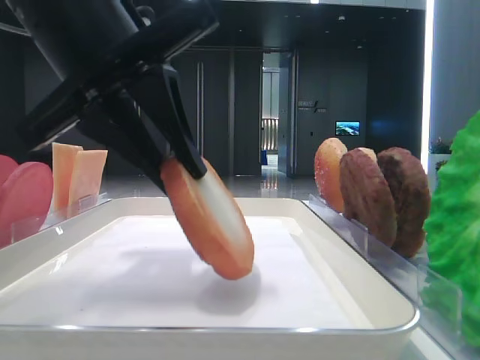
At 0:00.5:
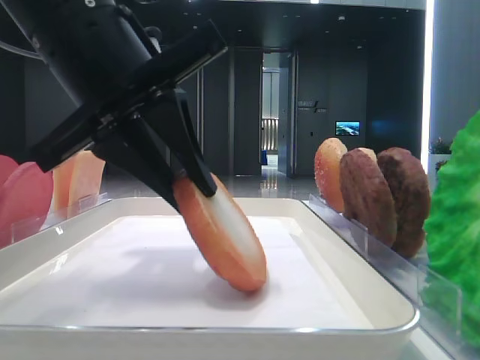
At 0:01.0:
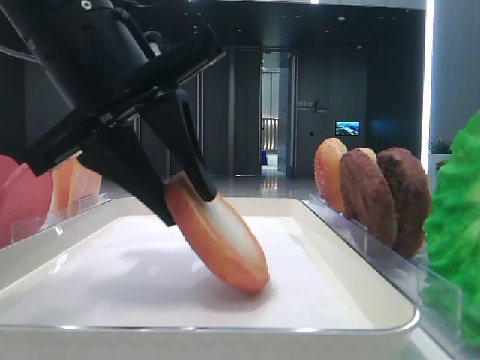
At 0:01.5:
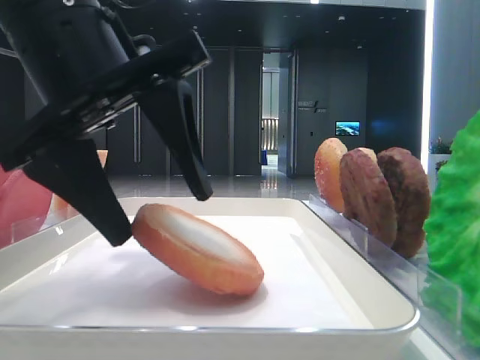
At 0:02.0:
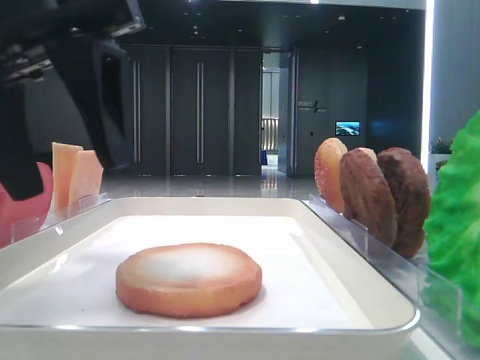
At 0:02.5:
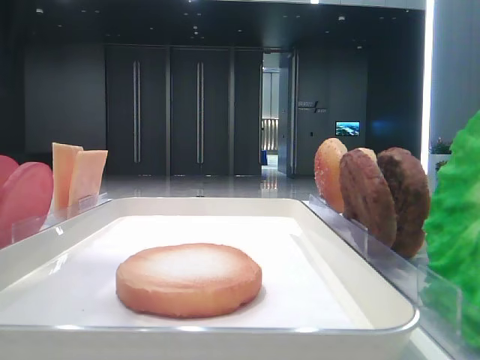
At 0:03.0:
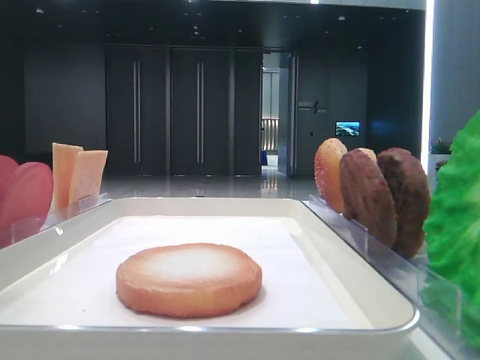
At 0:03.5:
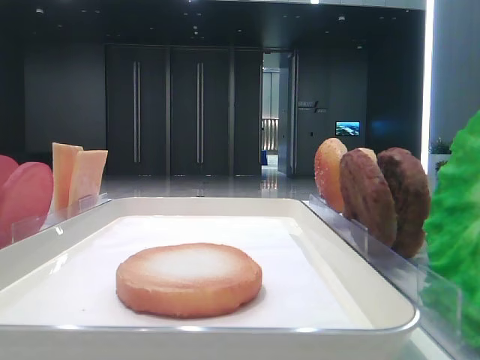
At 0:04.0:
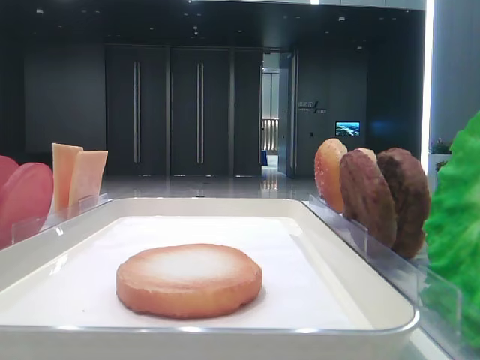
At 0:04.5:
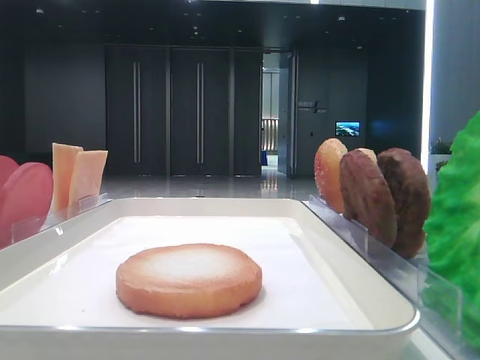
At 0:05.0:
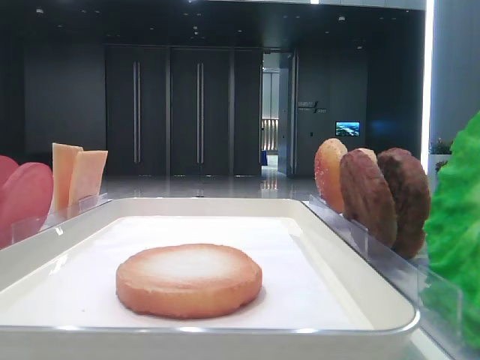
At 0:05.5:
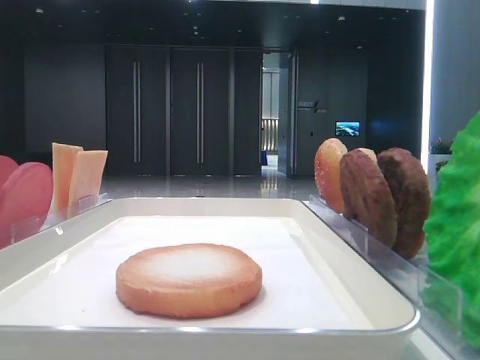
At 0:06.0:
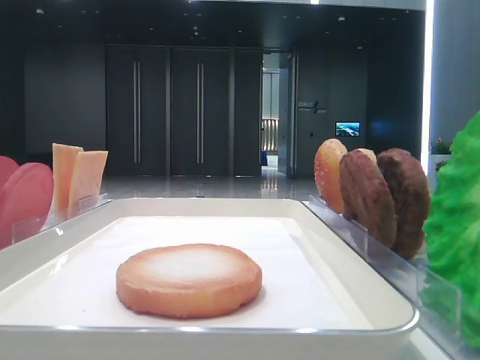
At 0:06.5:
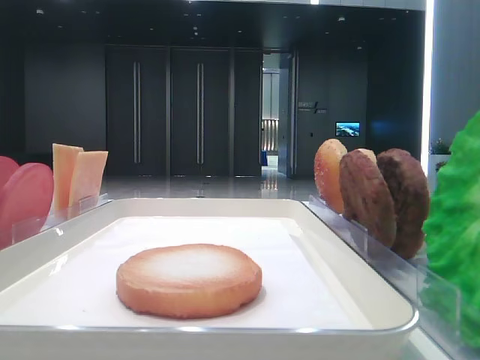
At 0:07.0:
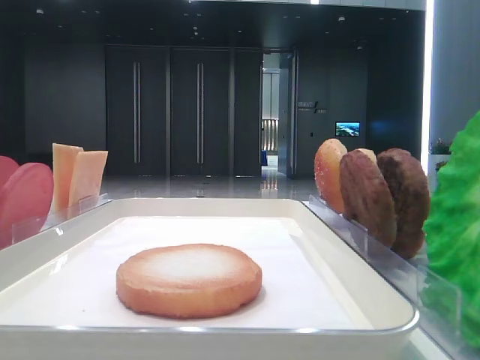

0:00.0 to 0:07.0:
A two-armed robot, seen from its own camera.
0:00.0 to 0:02.0: The left gripper opens.
0:02.0 to 0:03.5: The left gripper is displaced to the left and upward by approximately 20 cm.

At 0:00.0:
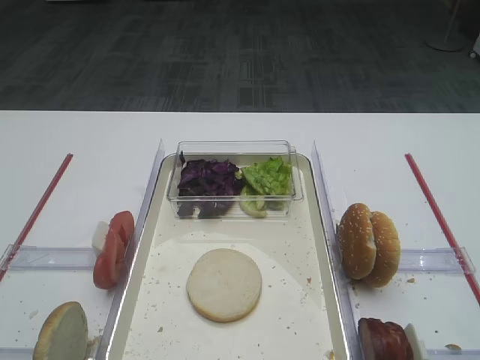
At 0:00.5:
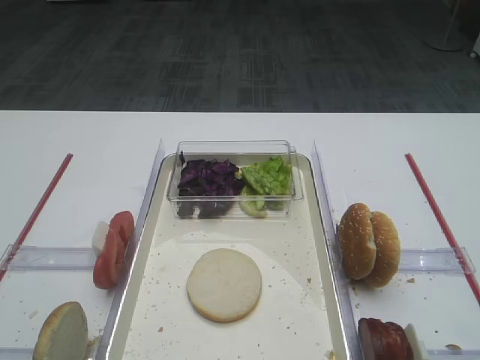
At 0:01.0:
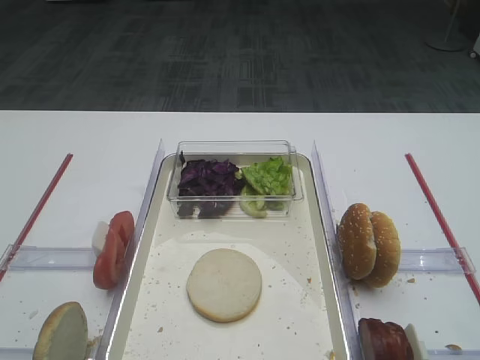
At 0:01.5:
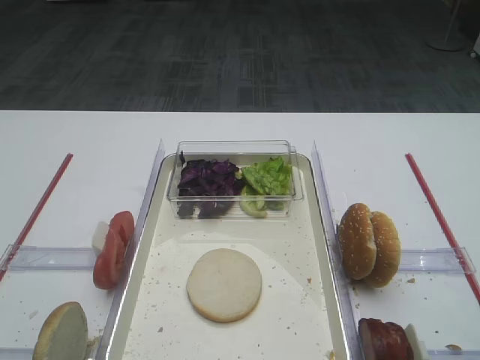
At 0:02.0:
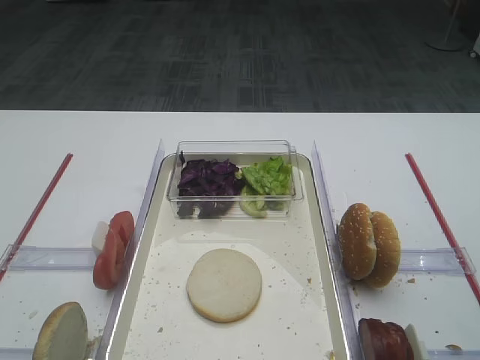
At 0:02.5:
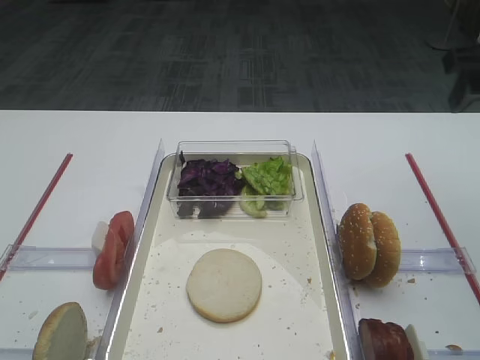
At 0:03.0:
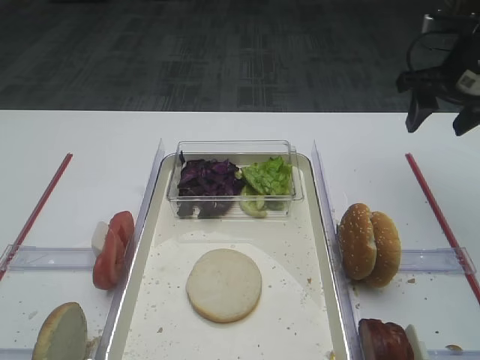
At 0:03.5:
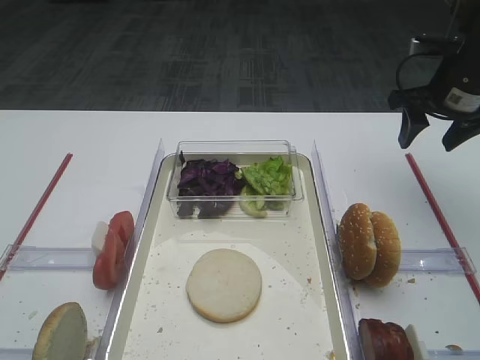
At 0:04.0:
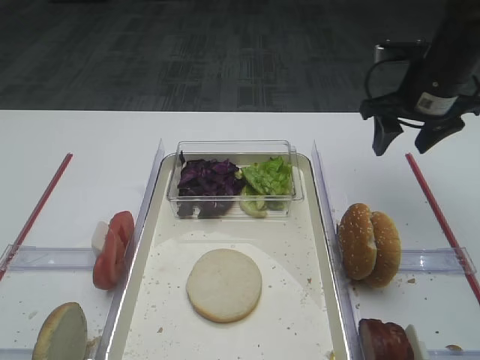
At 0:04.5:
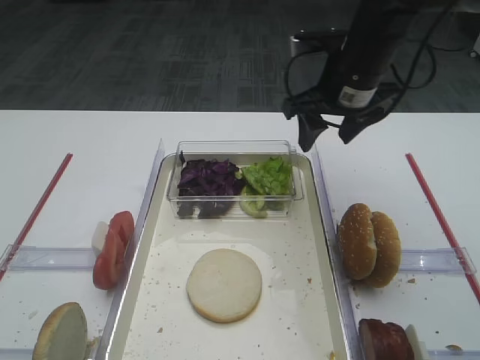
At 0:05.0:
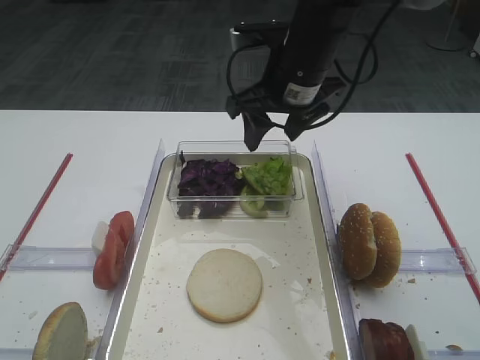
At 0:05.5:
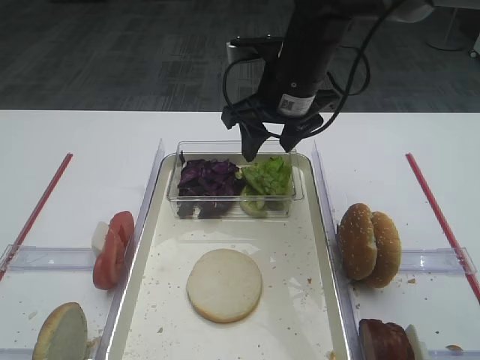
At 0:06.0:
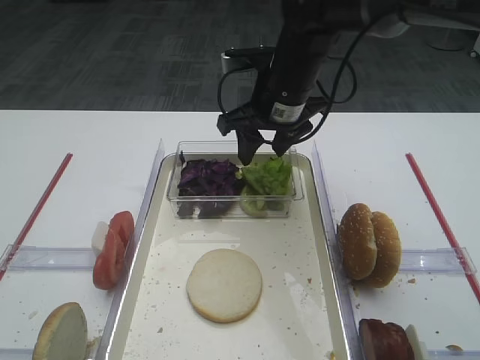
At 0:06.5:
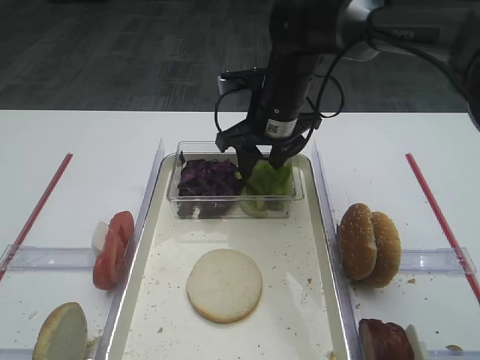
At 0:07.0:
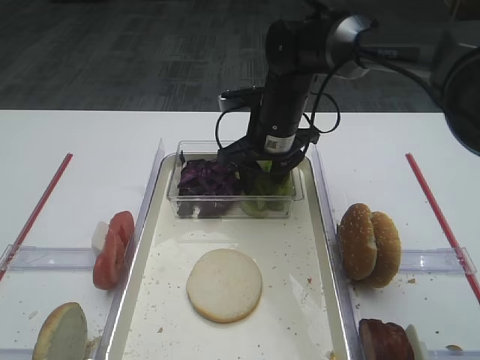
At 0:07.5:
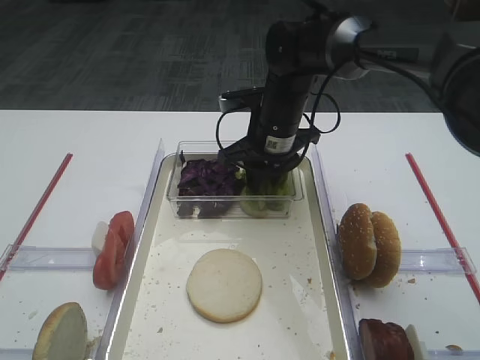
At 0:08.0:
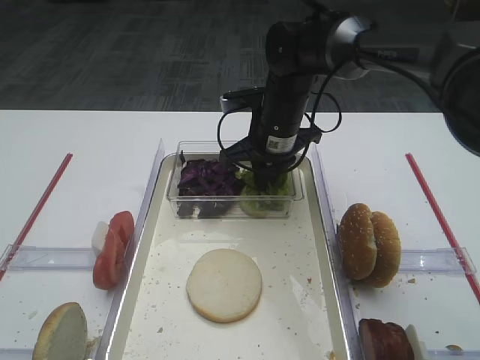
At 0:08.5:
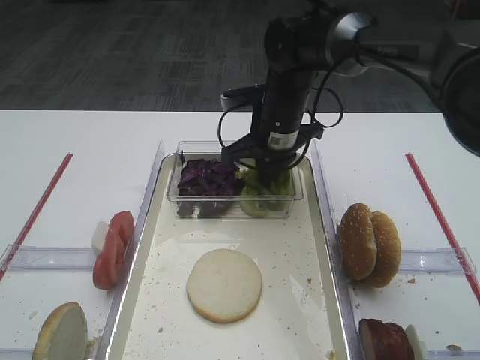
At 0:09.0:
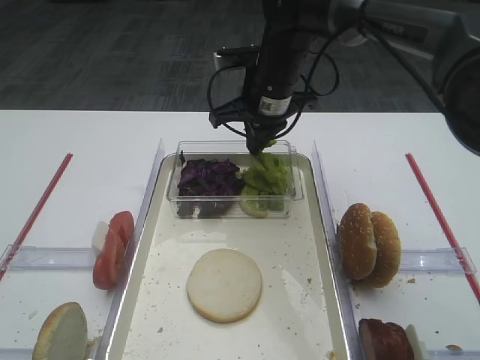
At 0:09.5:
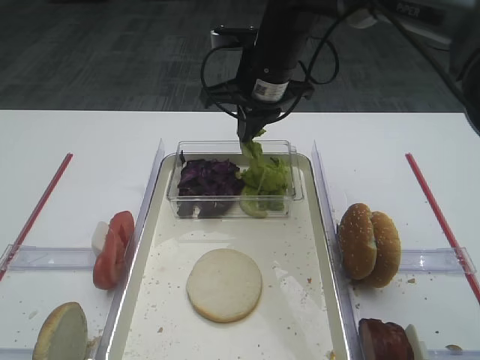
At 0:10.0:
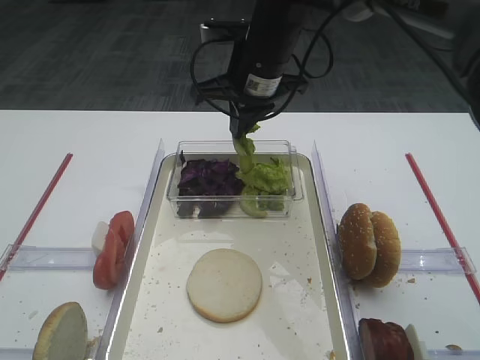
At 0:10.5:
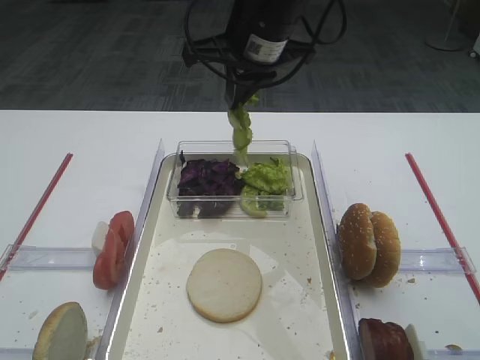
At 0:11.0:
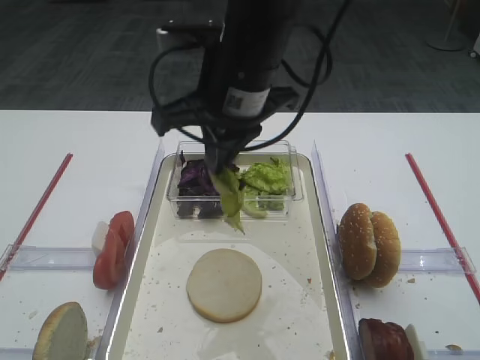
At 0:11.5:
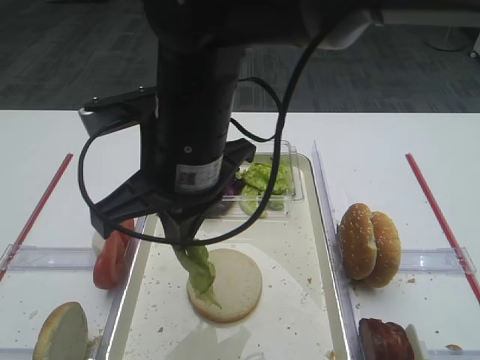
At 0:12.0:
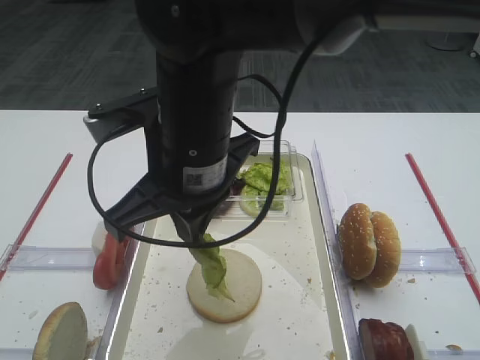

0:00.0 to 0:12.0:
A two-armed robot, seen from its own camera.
Step, 0:00.0 to 0:10.0: Pick up the lettuce leaf with the right gripper.
0:02.0 to 0:04.0: The right gripper travels forward and downward by about 30 cm.
0:04.0 to 0:06.0: The right gripper is displaced to the left by about 20 cm.
0:06.0 to 0:08.0: The right gripper shifts about 5 cm downward, and closes.
0:08.0 to 0:10.0: The right gripper travels upward by about 10 cm.
0:10.0 to 0:12.0: The right gripper heads backward, covering some 20 cm.

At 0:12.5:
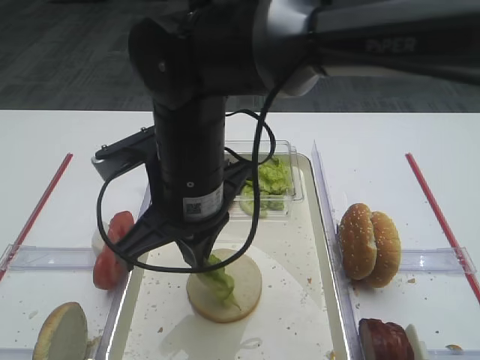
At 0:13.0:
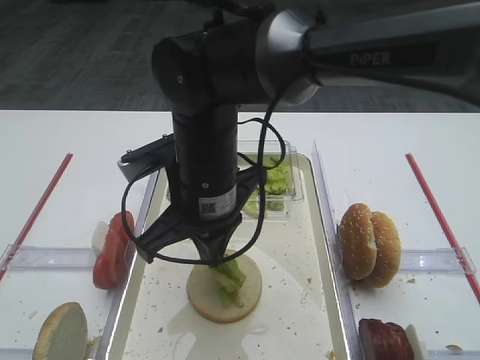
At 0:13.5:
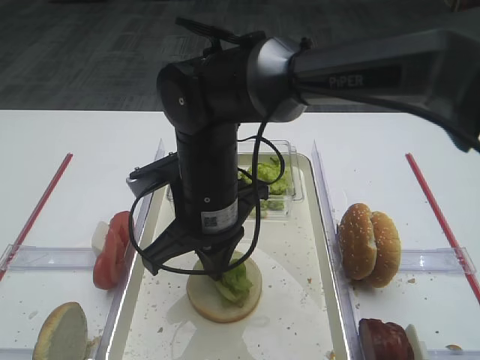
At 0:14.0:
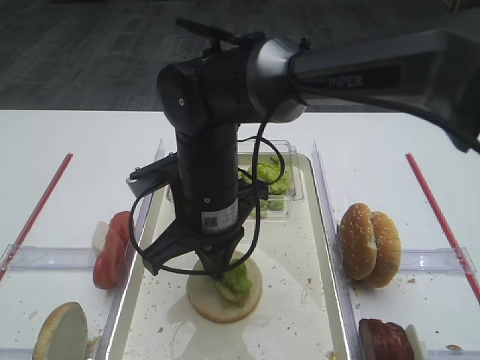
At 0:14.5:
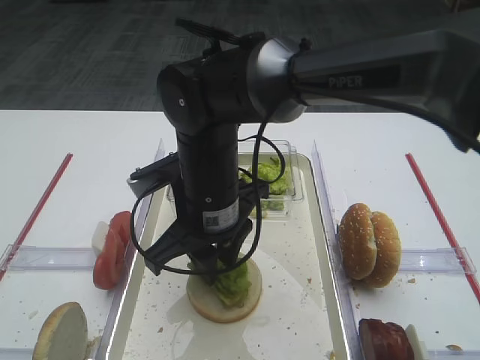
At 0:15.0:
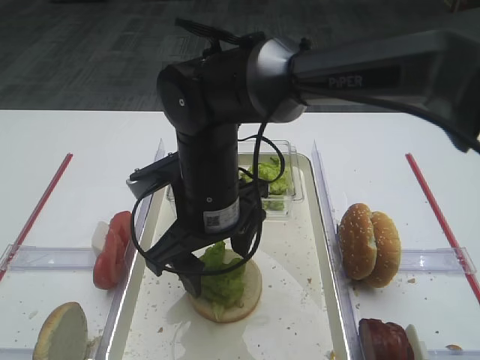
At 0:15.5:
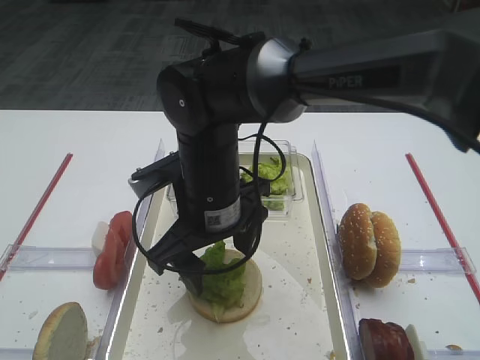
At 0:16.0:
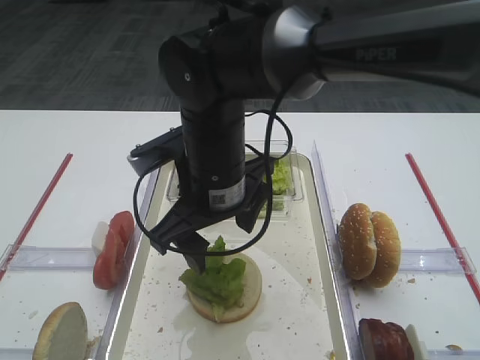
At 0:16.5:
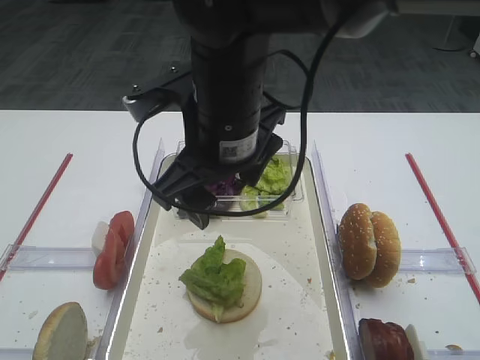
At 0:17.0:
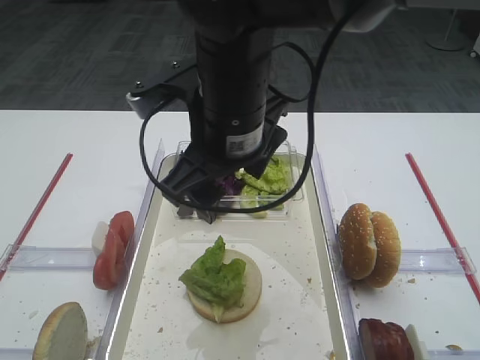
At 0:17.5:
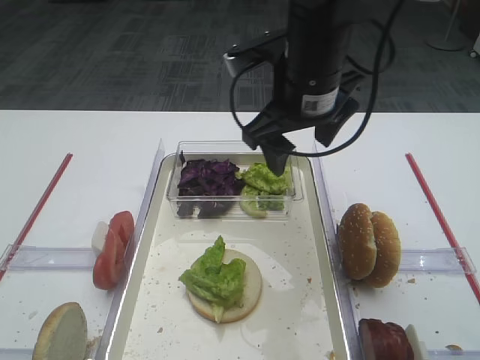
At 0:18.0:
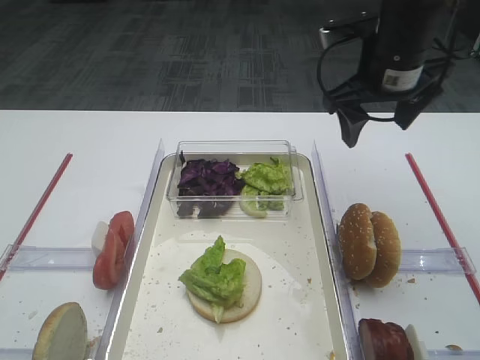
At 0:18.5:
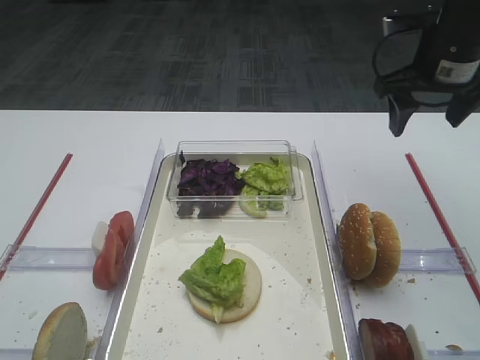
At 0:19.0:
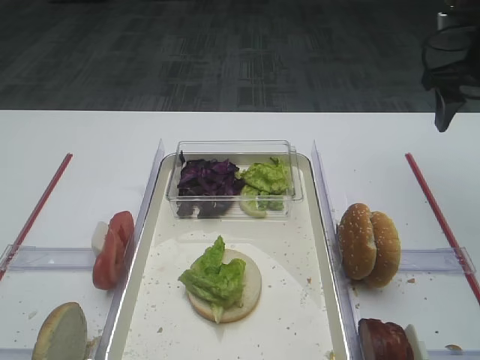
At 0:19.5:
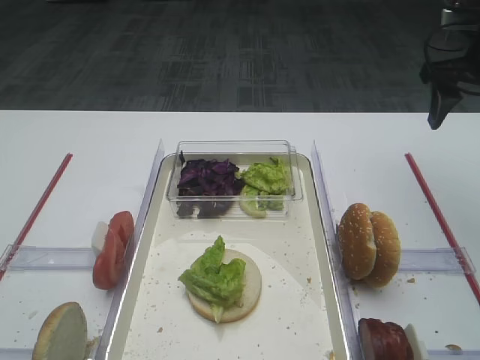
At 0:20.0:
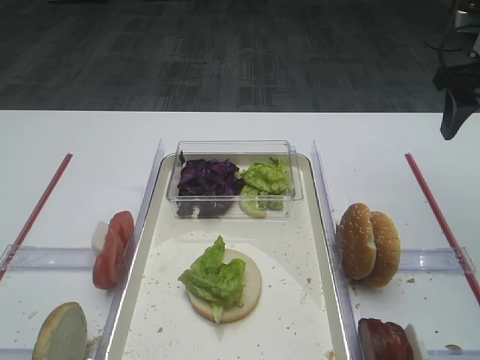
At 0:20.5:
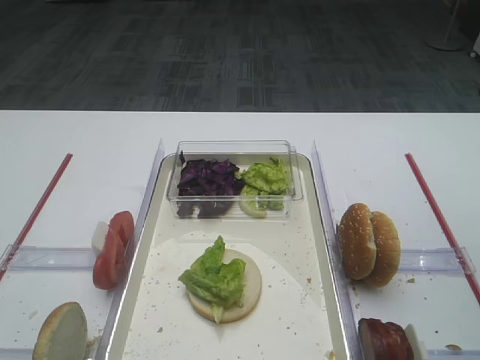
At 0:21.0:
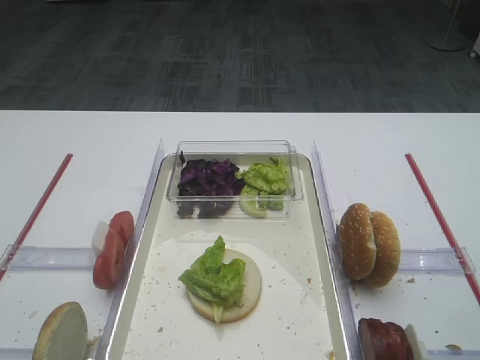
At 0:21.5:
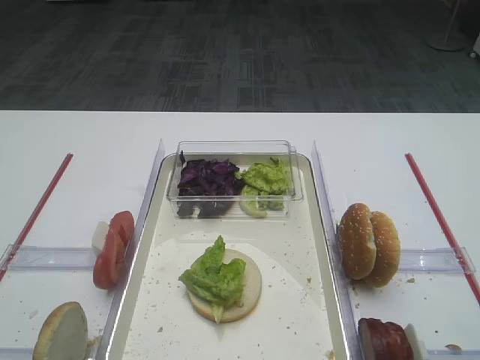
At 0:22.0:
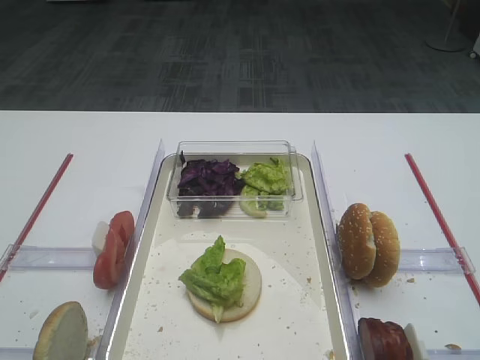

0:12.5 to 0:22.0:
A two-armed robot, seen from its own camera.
Step, 0:12.5 to 0:16.0: Place the lettuce leaf on the bread slice with the right gripper.
0:12.5 to 0:14.5: The right gripper changes place by some 5 cm, and opens its fingers.
0:14.5 to 0:16.5: The right gripper shifts approximately 10 cm upward, and opens up.
0:16.5 to 0:18.0: The right gripper goes about 20 cm to the right and forward.
0:18.0 to 0:20.0: The right gripper heads to the right, covering approximately 15 cm.
0:20.0 to 0:22.0: The right gripper travels backward by about 35 cm.
